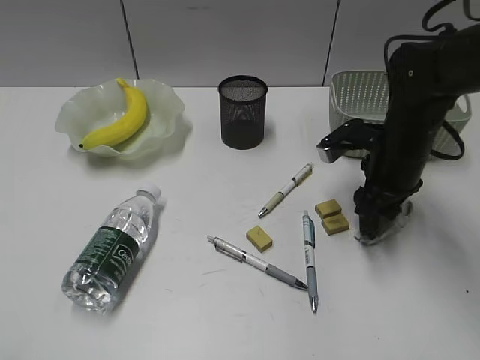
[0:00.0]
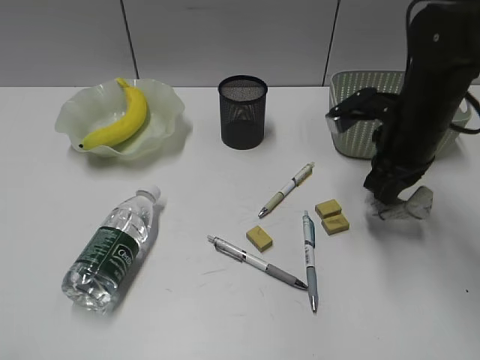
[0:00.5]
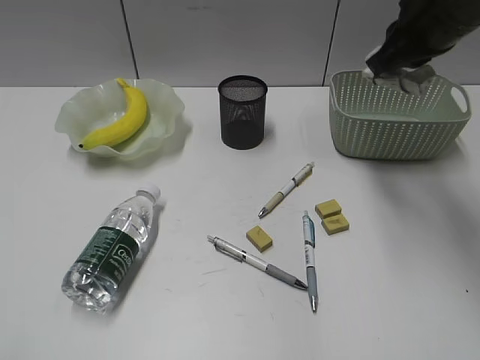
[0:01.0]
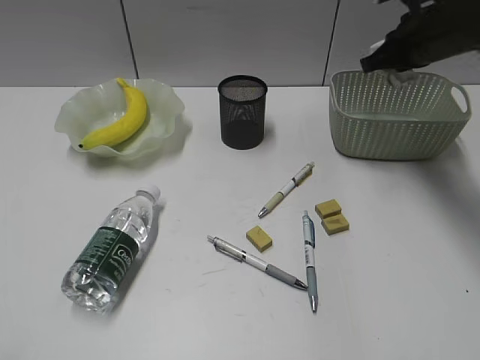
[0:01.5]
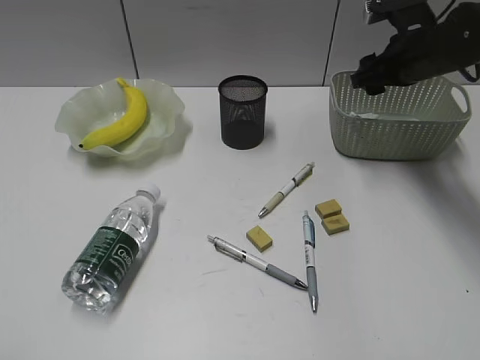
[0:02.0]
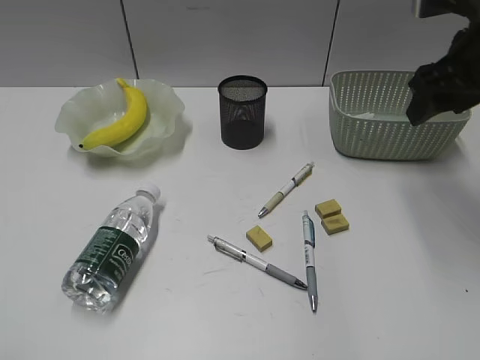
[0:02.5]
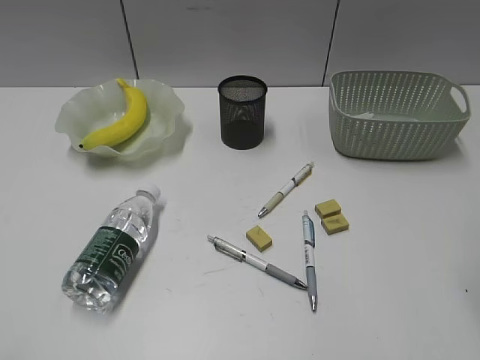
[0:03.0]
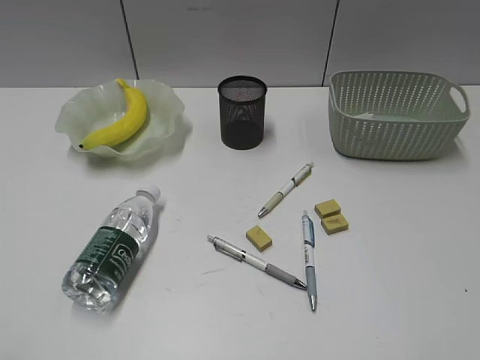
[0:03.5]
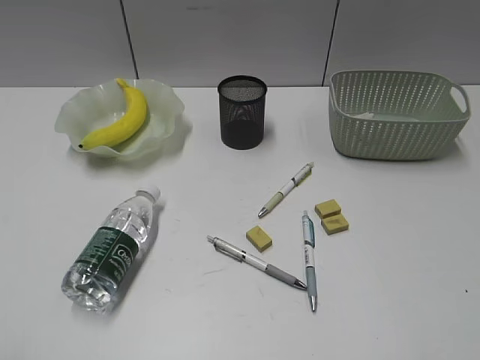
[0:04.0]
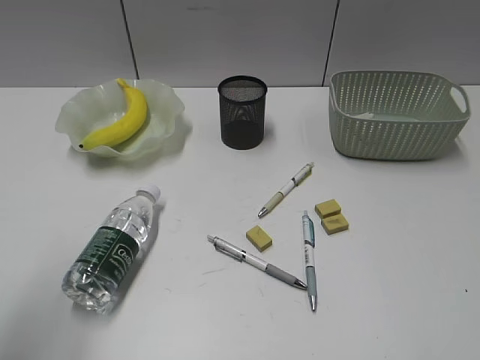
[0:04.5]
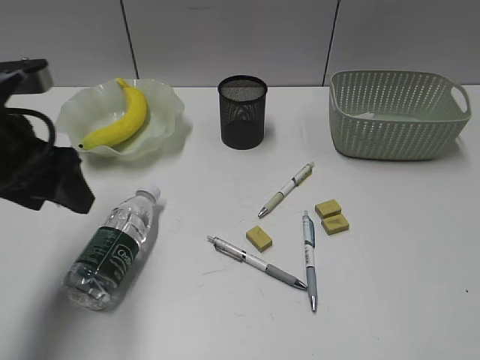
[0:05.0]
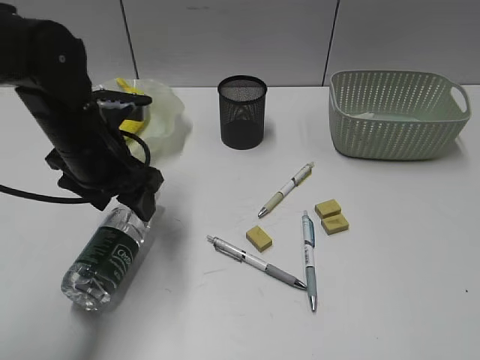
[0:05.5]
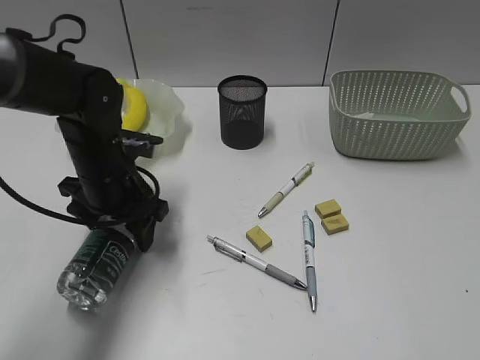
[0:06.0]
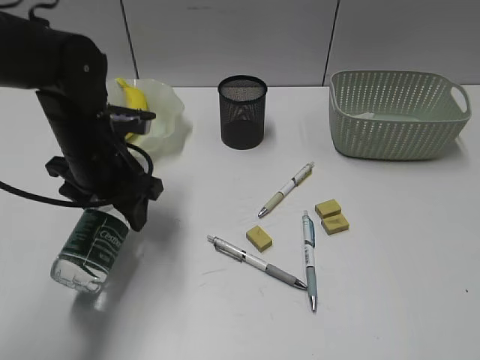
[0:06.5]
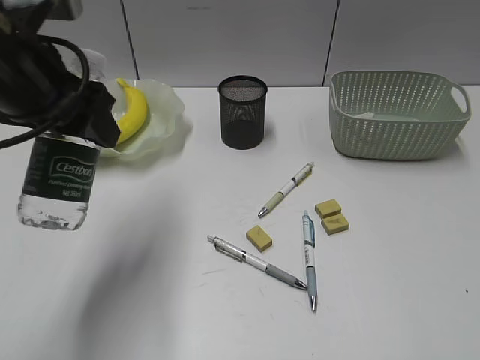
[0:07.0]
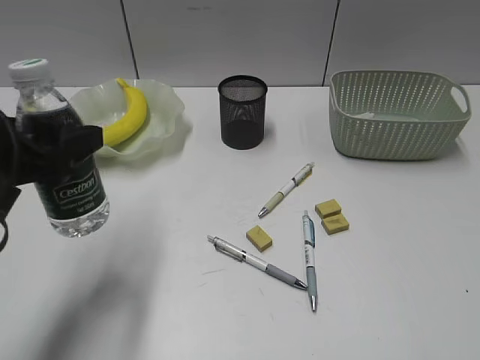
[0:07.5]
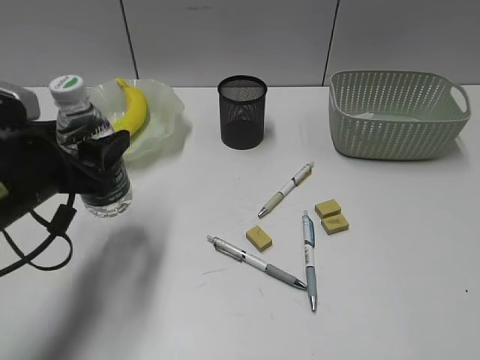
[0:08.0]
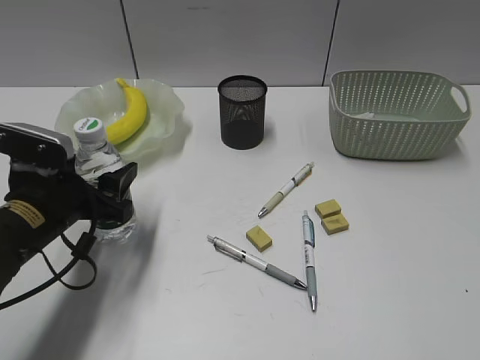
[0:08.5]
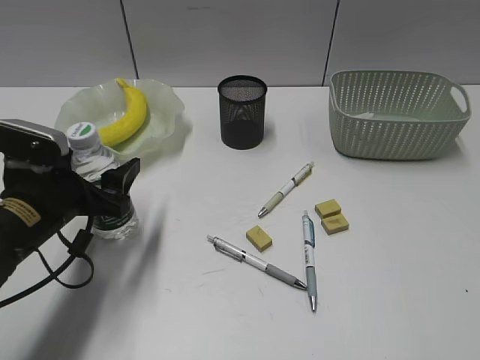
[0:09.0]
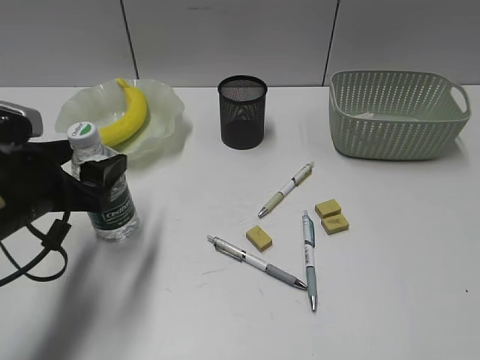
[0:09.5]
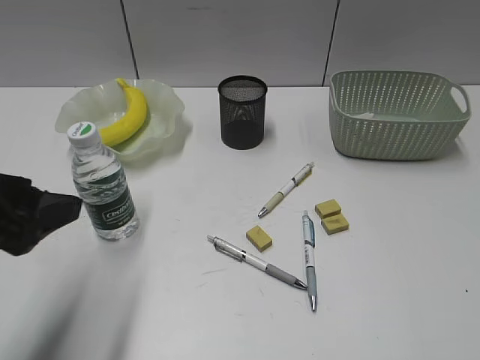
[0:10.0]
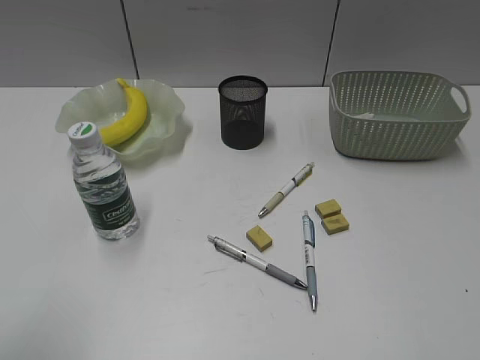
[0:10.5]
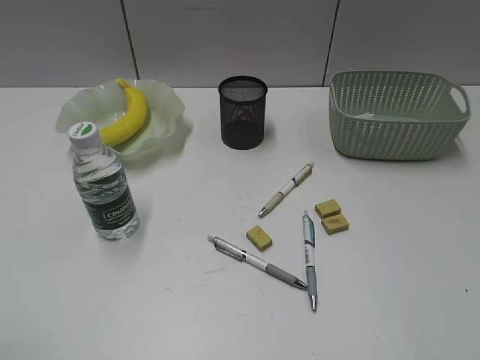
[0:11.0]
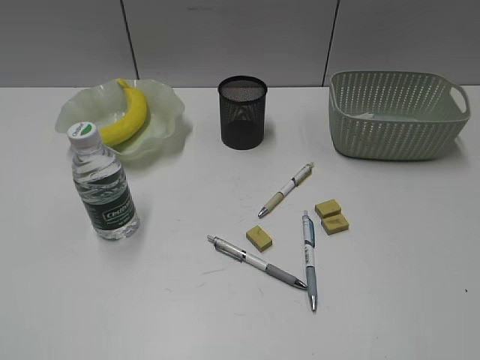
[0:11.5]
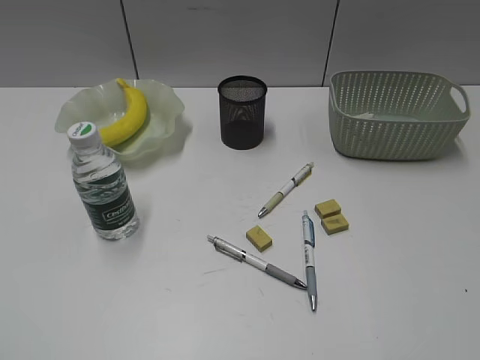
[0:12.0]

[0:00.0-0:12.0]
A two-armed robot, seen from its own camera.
Step, 0.5 to 2.0 s: Place the waste paper in the basket with right gripper.
Step, 2.5 to 6.0 s: Grasp the bottle with left gripper.
Step, 6.5 to 9.5 s: Stand the bottle with left gripper.
0.0 to 2.0 s: The right gripper travels forward and upward by roughly 10 cm, and closes, then opens again.
2.0 to 4.0 s: The right gripper heads backward, covering some 40 cm.
4.0 to 6.0 s: The left gripper heads forward, downward and to the right, covering some 40 cm, and opens up.
6.0 to 8.0 s: The left gripper travels backward, upward and to the left by about 15 cm.
8.0 to 10.0 s: The left gripper is displaced backward by roughly 5 cm.
10.0 to 12.0 s: The left gripper goes about 20 cm backward and to the left.

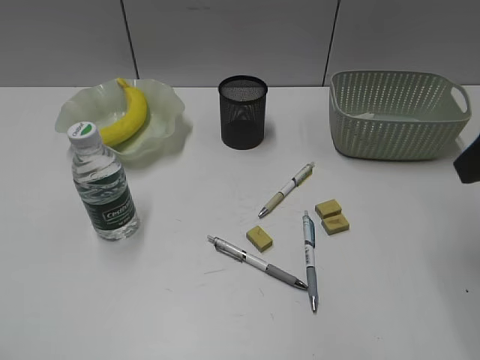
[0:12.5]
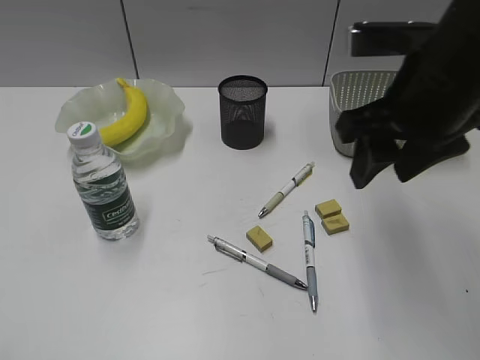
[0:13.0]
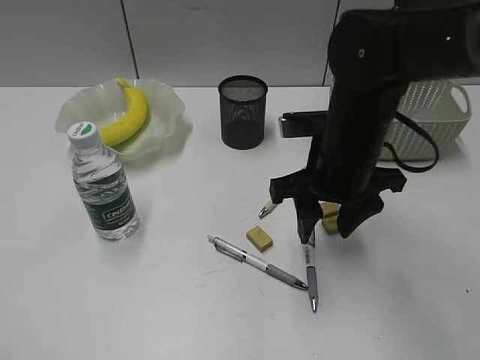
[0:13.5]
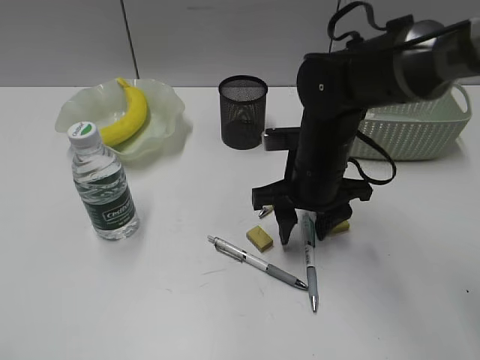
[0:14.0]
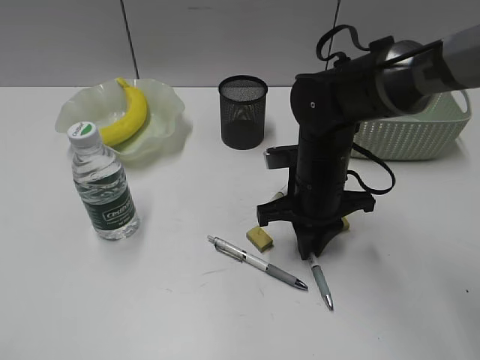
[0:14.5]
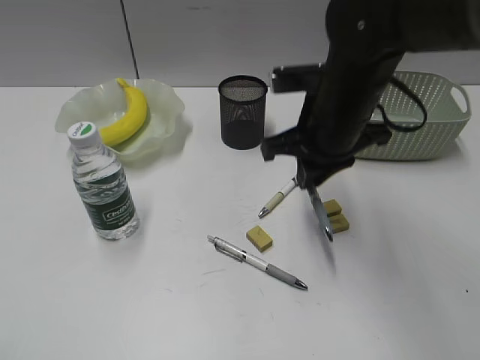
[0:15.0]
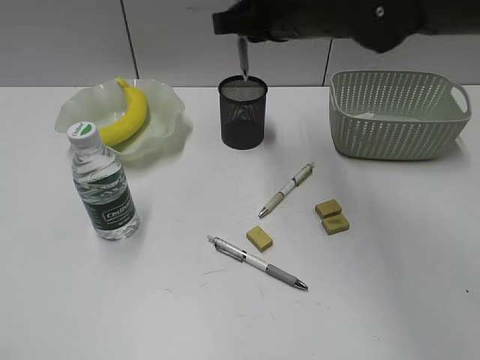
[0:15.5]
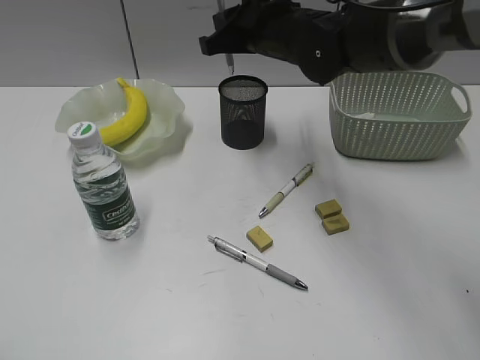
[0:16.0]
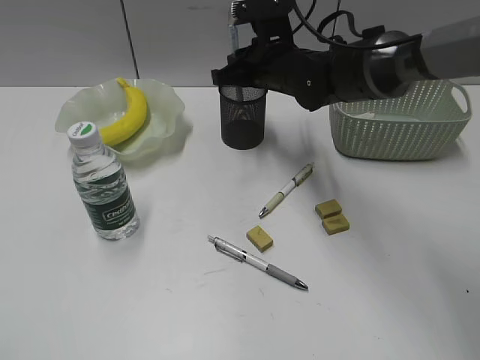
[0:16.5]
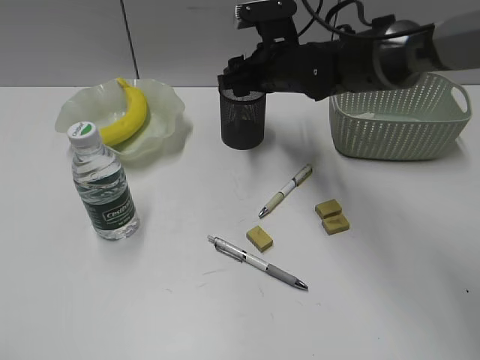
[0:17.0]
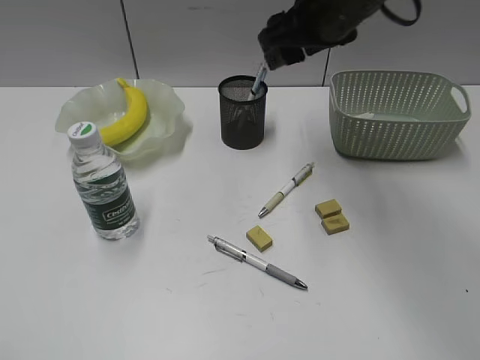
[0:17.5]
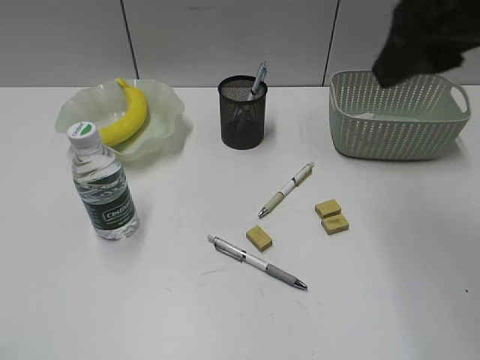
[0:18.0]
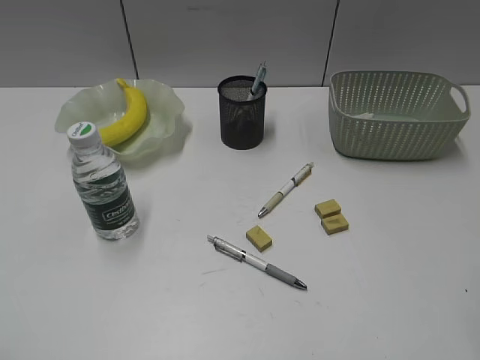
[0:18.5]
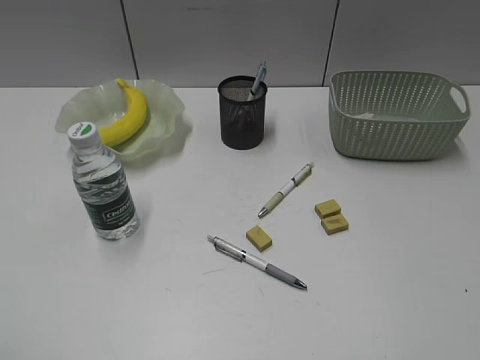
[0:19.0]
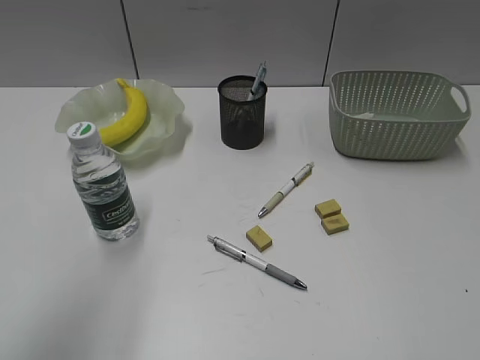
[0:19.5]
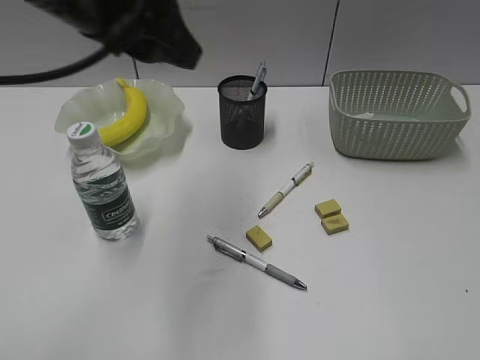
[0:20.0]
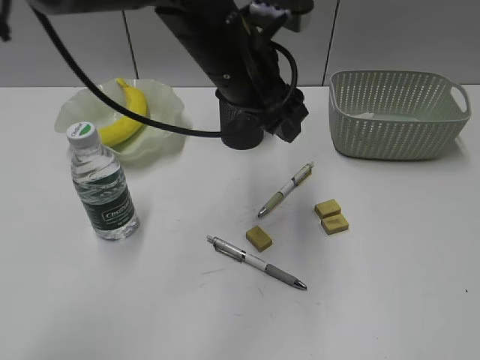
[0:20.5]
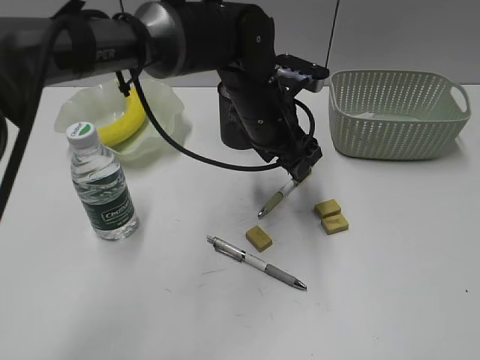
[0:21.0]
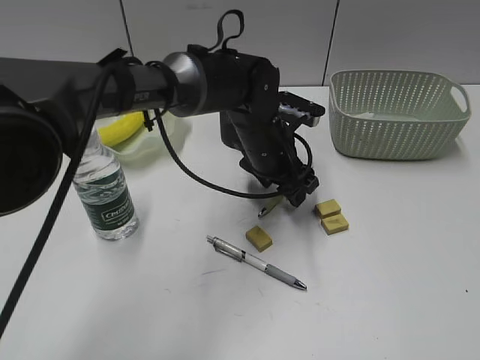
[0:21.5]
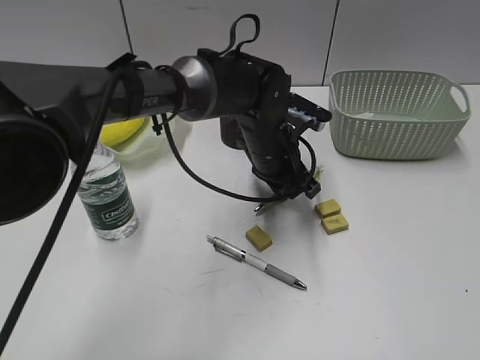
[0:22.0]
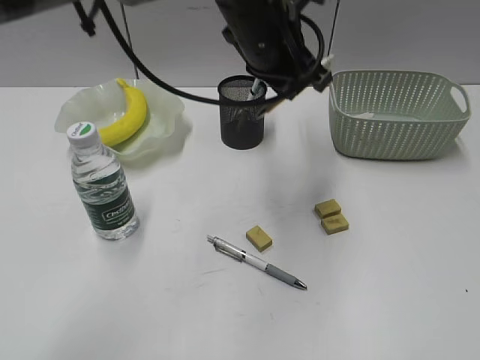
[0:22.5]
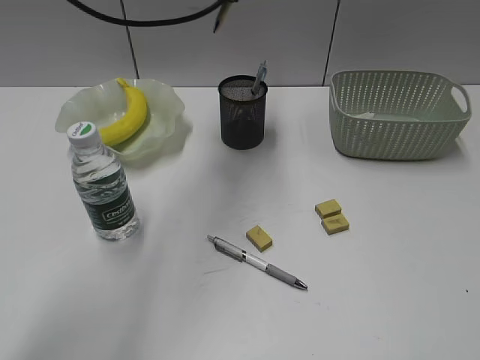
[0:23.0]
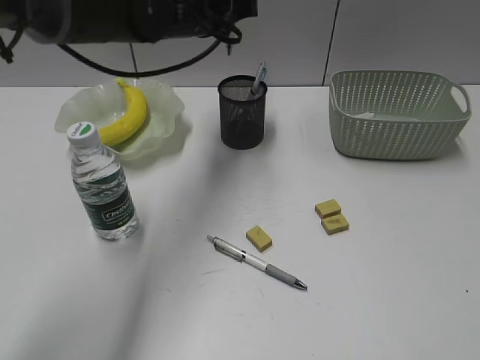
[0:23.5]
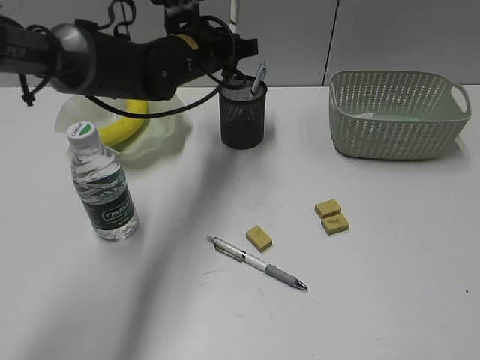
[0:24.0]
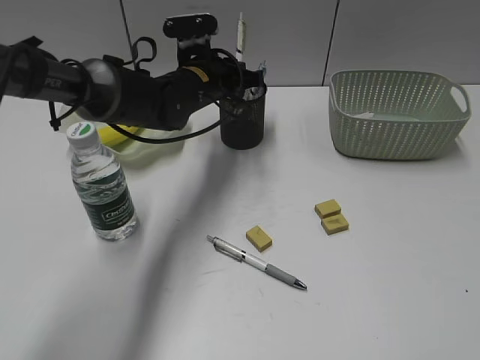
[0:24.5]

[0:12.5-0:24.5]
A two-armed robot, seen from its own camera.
Step, 12.5 to 14.5 s: Grasp the blue pen with right gripper.
Step, 15.0 to 16.5 s: Place the blue pen in pen holder with right gripper.
Step, 17.0 to 21.5 s: Grasp the yellow pen with left gripper.
12.5 to 14.5 s: The right gripper goes about 30 cm downward, to the left and forward, and closes up.
14.5 to 16.5 s: The right gripper goes about 15 cm forward and upward.
16.5 to 18.5 s: The right gripper is displaced backward, to the right and upward by approximately 40 cm, and opens its fingers.
18.5 to 20.5 s: The left gripper moves forward and to the right, roughly 50 cm, while the right gripper heads backward, to the right and downward, covering roughly 15 cm.
20.5 to 22.5 s: The left gripper goes downward and returns, some 15 cm each way, and closes its fingers.
22.5 to 24.5 s: The left gripper shifts roughly 15 cm downward, forward and to the left.

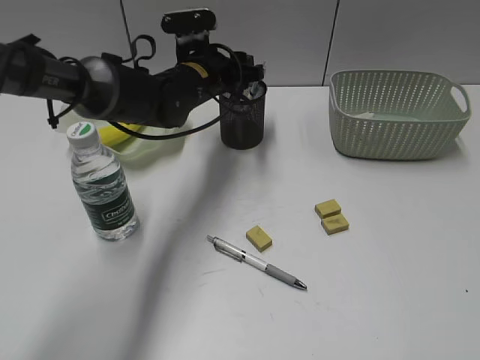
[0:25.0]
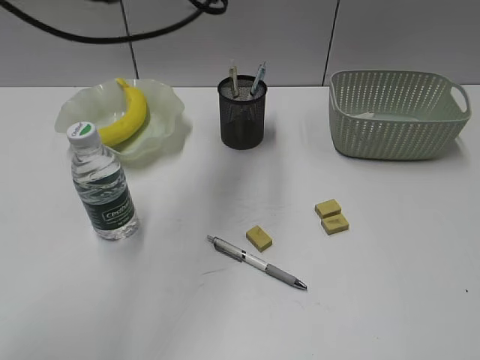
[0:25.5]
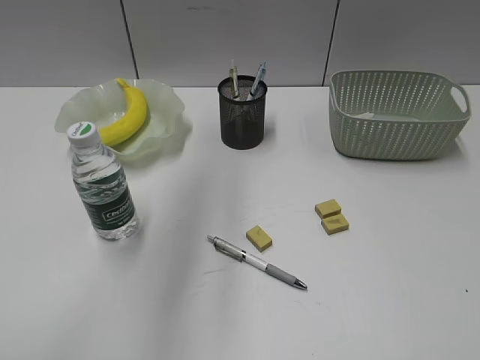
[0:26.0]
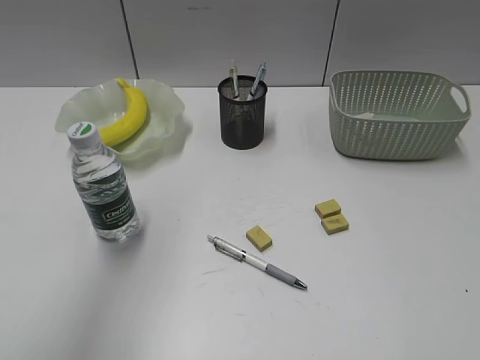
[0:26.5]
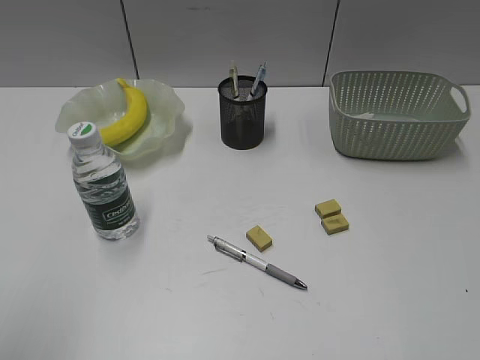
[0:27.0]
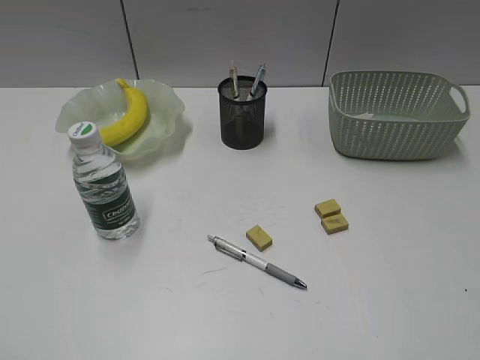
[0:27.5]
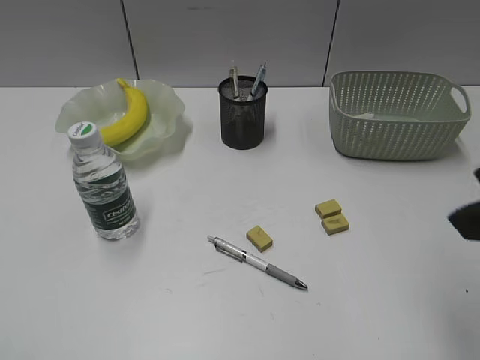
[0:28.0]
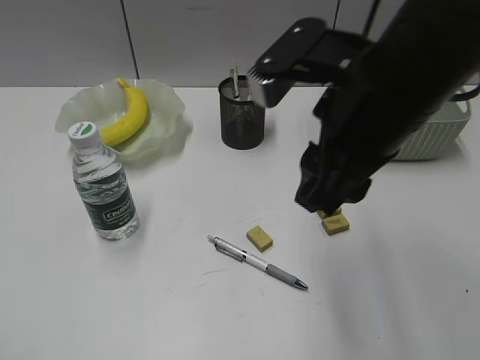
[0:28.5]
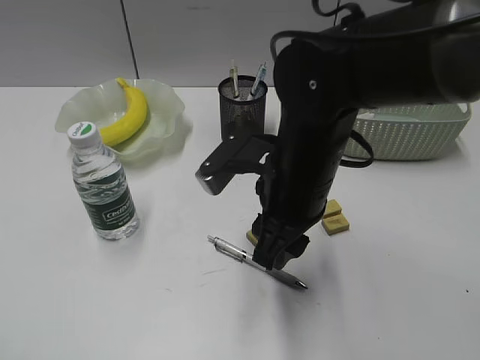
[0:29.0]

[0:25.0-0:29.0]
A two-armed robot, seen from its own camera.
25.0 to 27.0 s: The left gripper is displaced backward, upward and to the left by approximately 50 cm.
27.0 to 29.0 s: The right gripper is displaced forward, to the left and downward by approximately 40 cm, while the left gripper travels downward and backward by some 15 cm.
